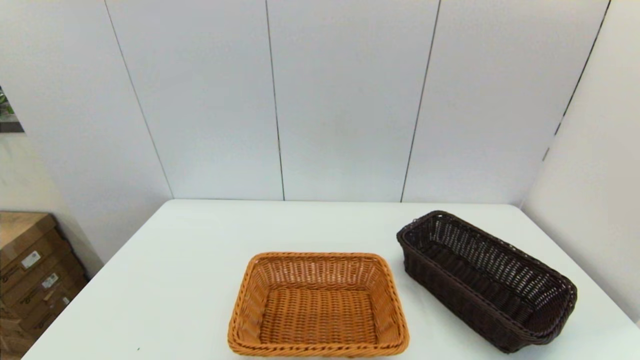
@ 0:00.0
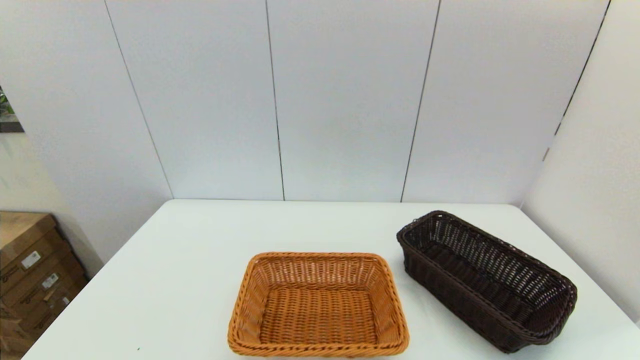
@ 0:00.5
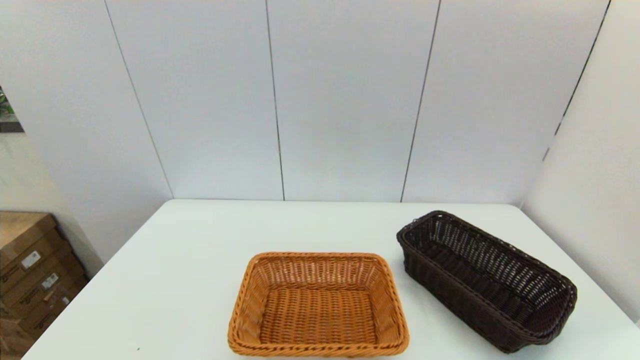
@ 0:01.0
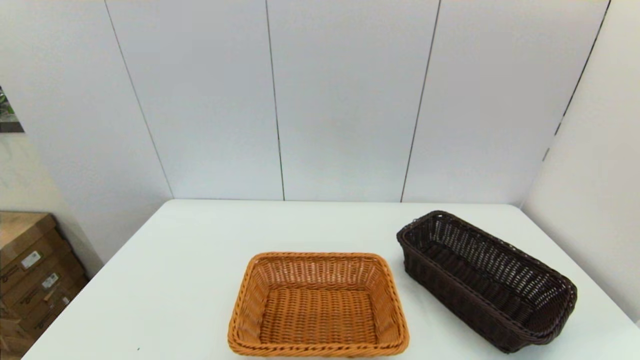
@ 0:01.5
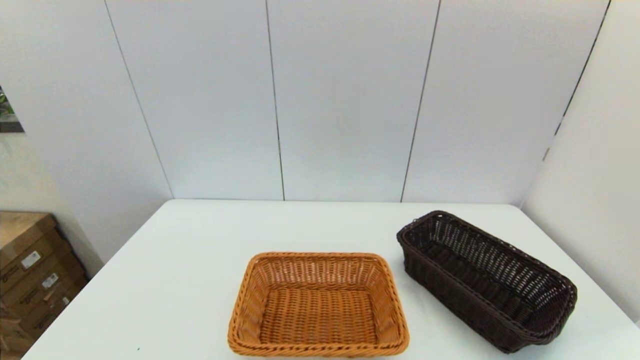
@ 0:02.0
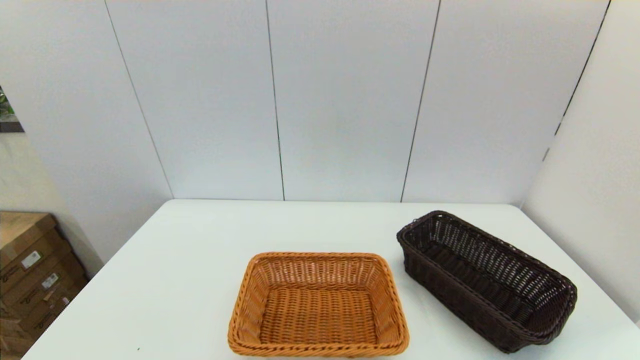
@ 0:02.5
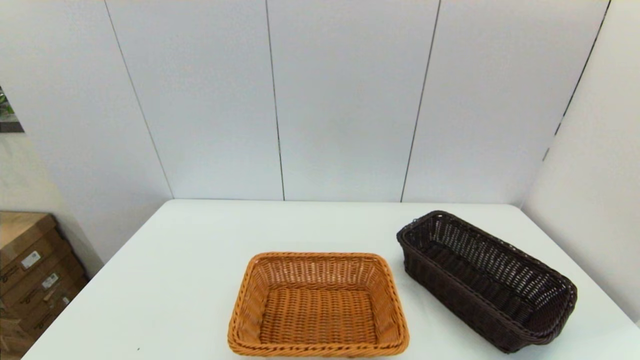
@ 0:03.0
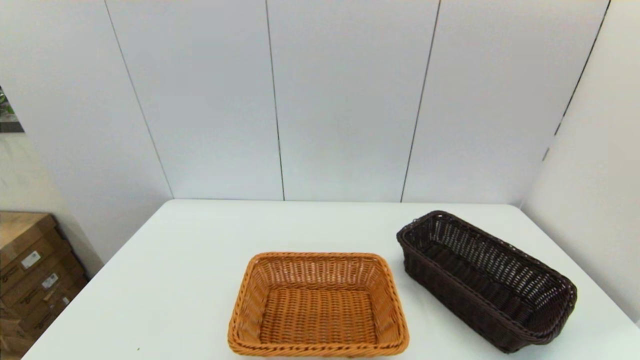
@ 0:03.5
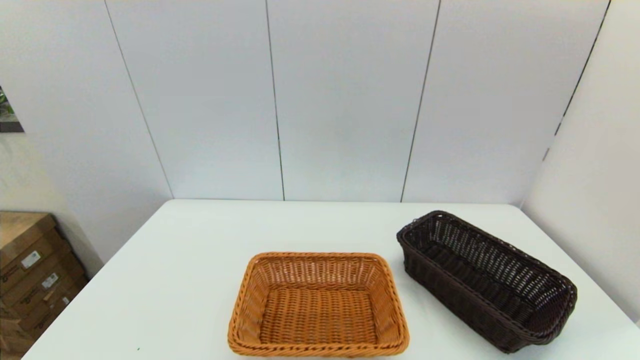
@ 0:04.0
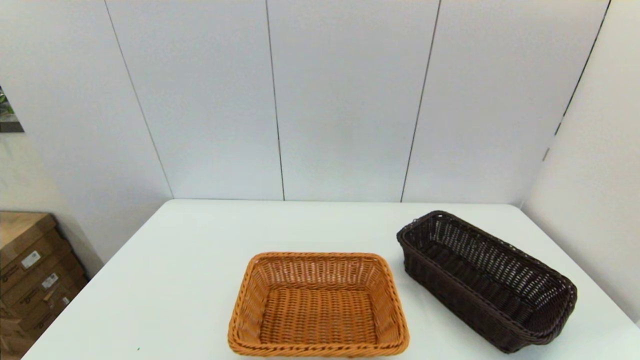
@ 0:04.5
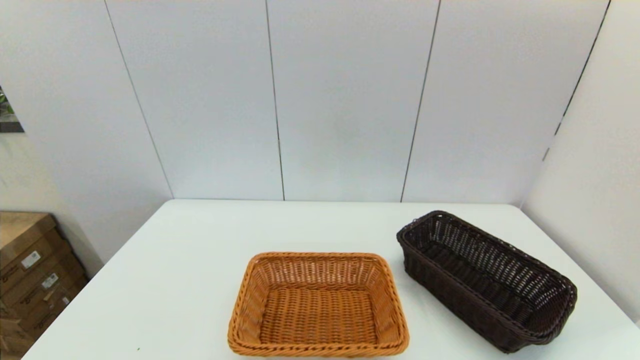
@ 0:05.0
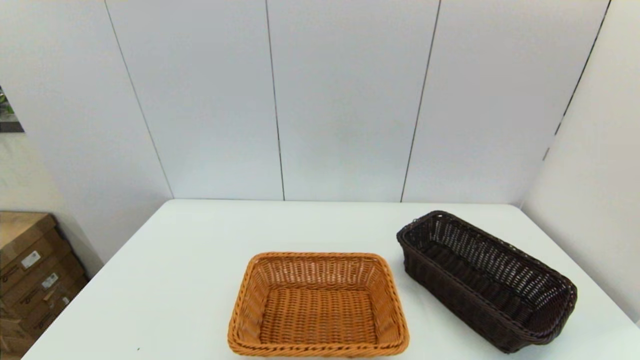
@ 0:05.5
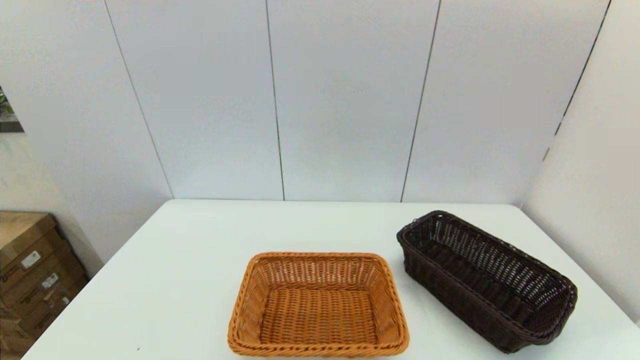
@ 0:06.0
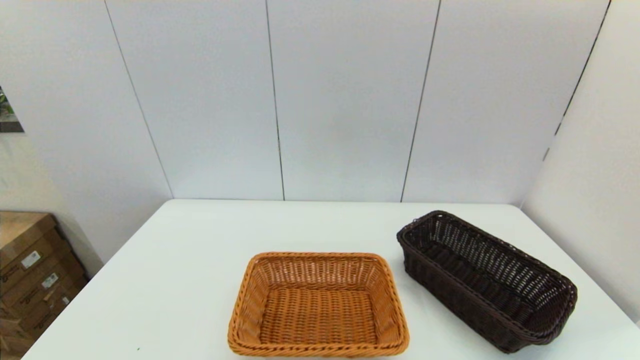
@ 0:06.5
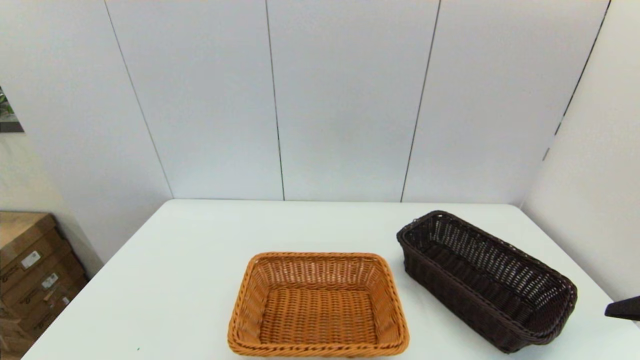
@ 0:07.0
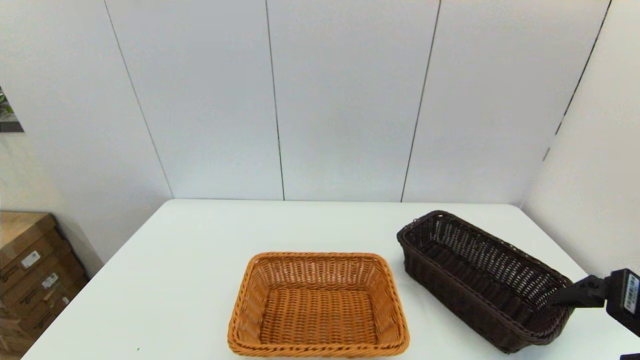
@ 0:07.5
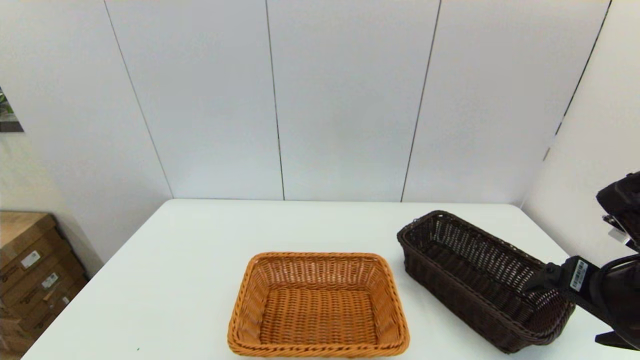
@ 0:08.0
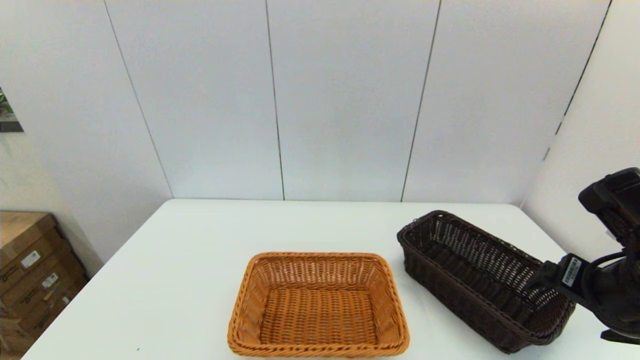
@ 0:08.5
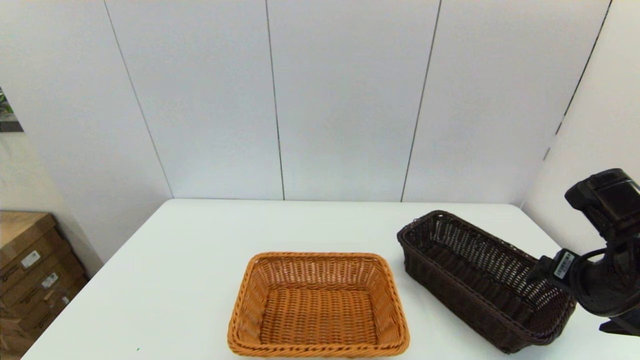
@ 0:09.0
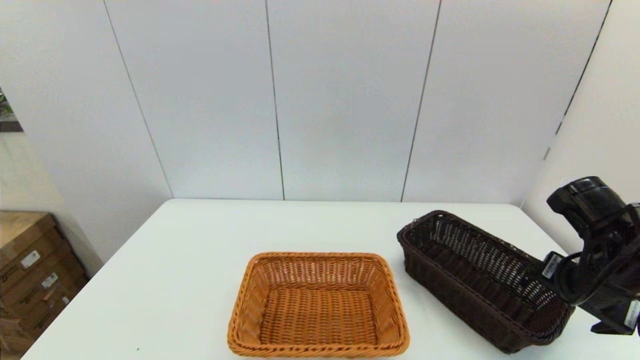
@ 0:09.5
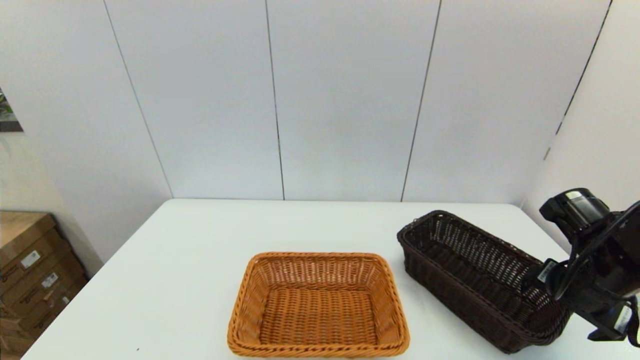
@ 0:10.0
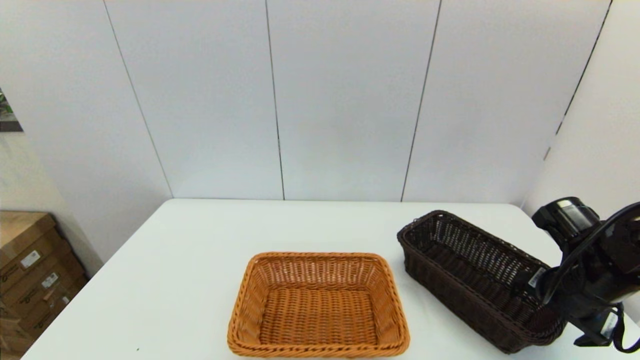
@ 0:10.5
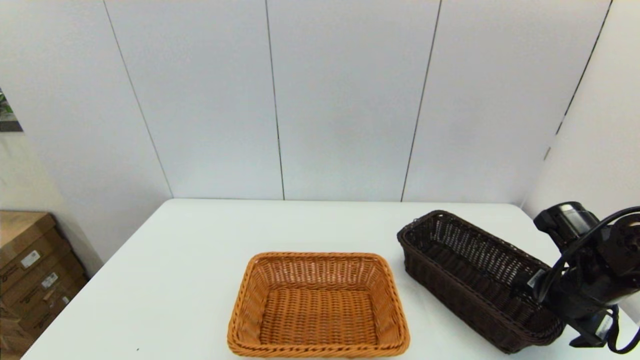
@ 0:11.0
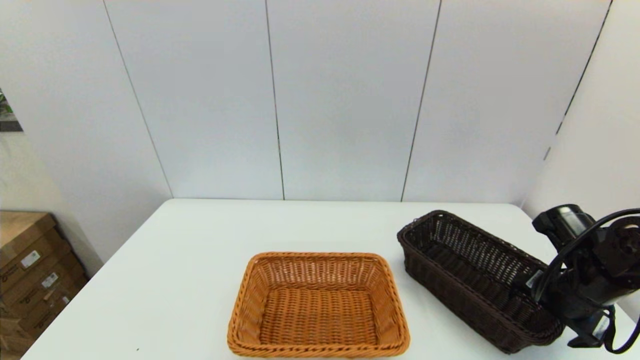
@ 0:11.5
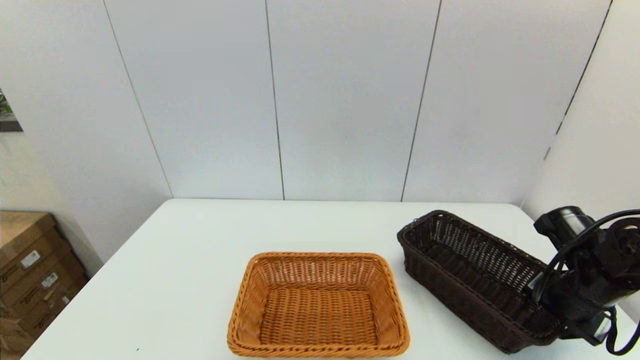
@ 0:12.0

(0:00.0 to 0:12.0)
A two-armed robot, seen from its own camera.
Task of the whole recording: stack a basket on top of another basket.
0:06.0 - 0:08.0: The right gripper travels forward by approximately 15 cm.
0:08.0 - 0:10.0: The right gripper moves downward and forward, roughly 10 cm.
0:10.0 - 0:12.0: The right gripper closes.

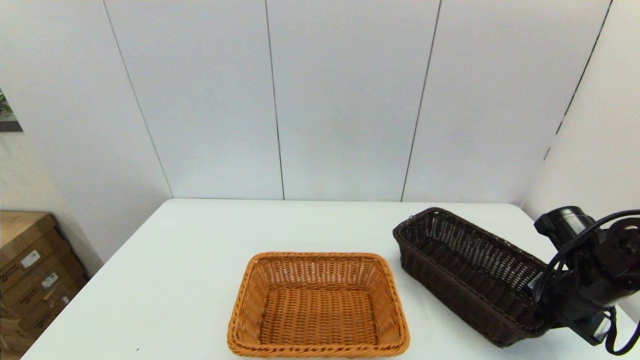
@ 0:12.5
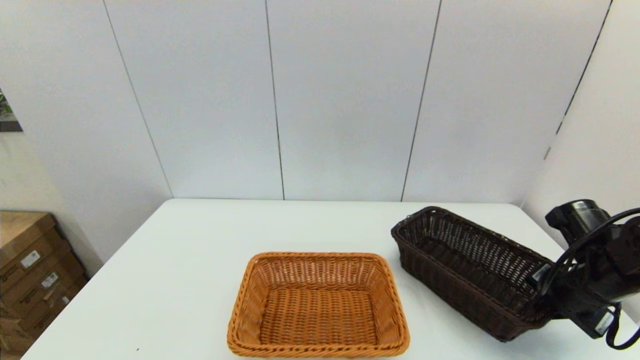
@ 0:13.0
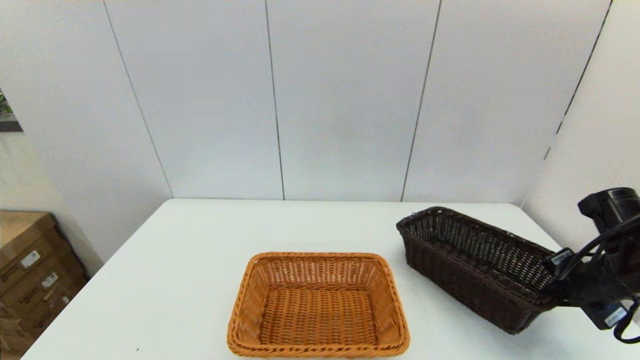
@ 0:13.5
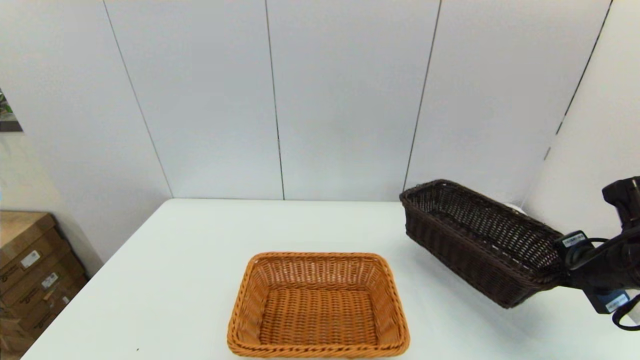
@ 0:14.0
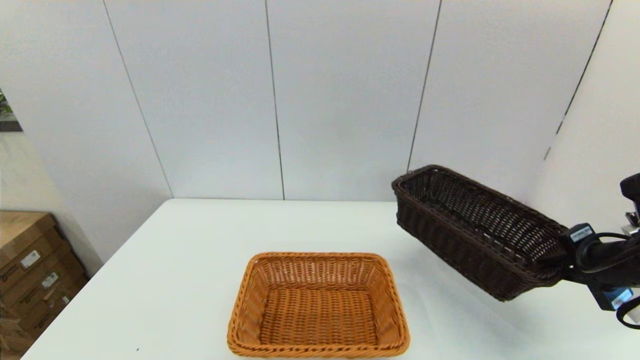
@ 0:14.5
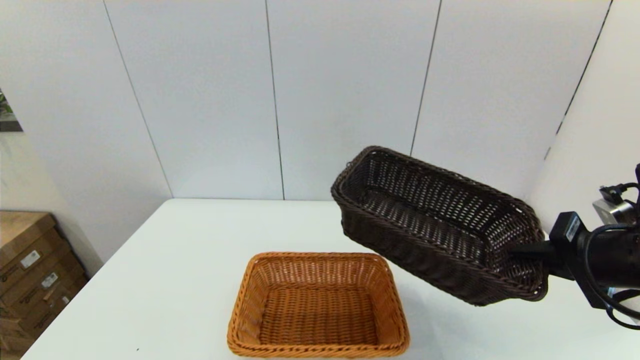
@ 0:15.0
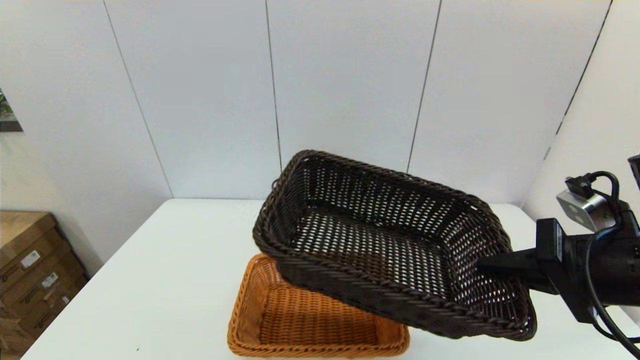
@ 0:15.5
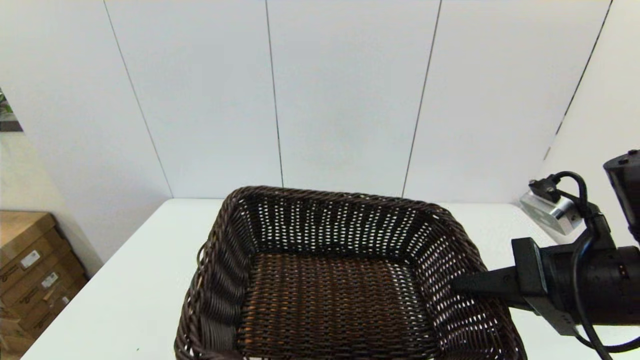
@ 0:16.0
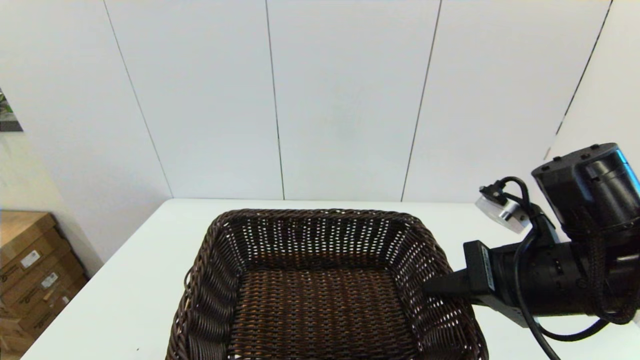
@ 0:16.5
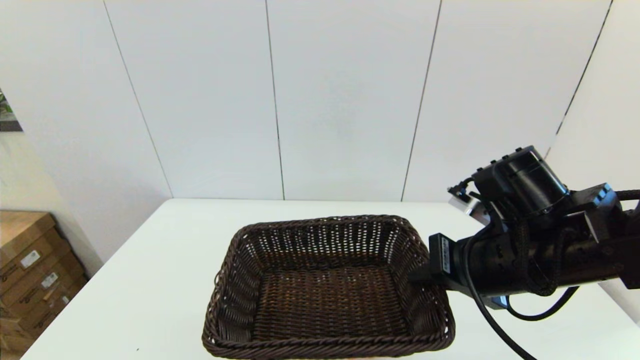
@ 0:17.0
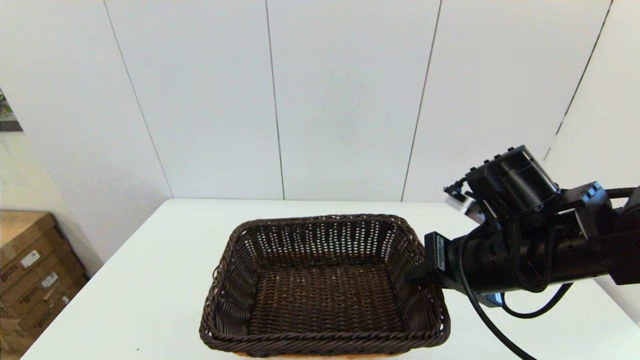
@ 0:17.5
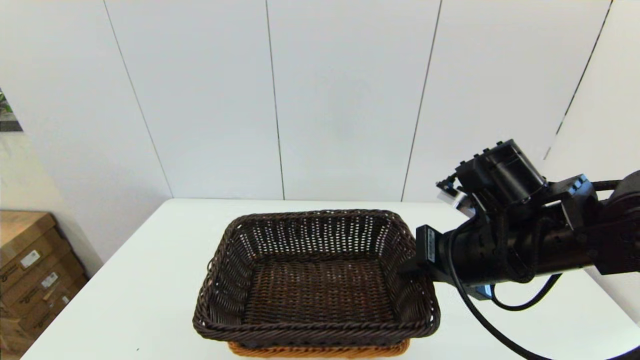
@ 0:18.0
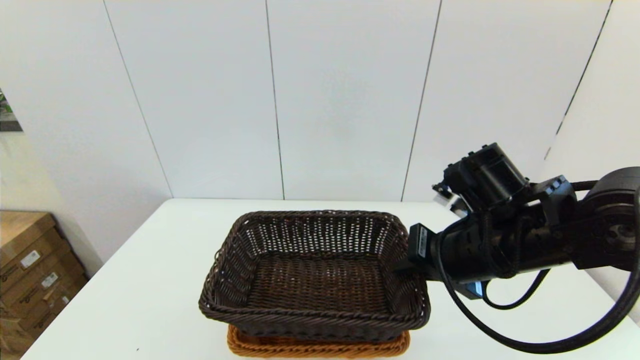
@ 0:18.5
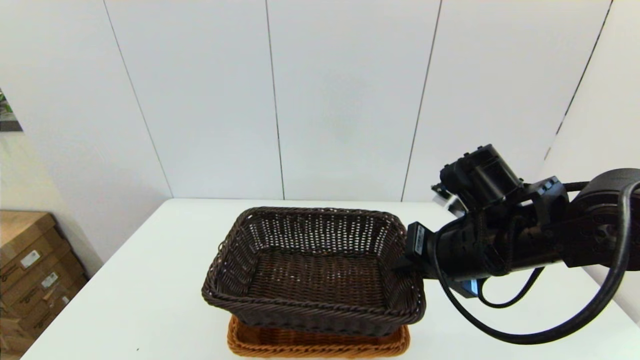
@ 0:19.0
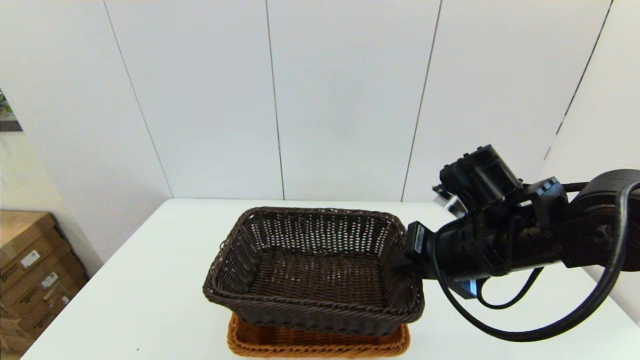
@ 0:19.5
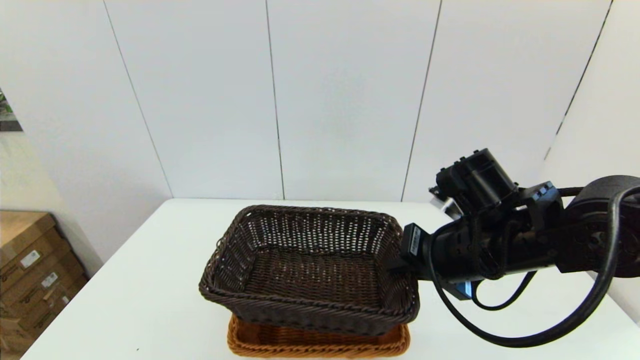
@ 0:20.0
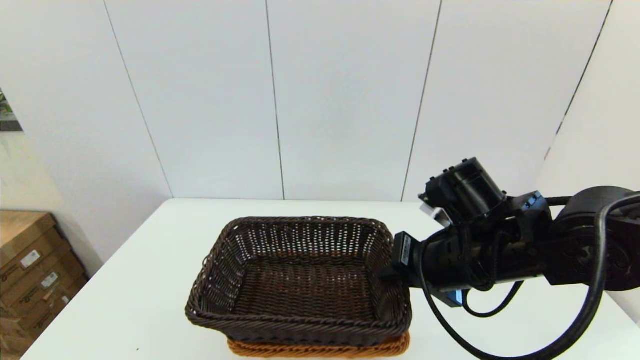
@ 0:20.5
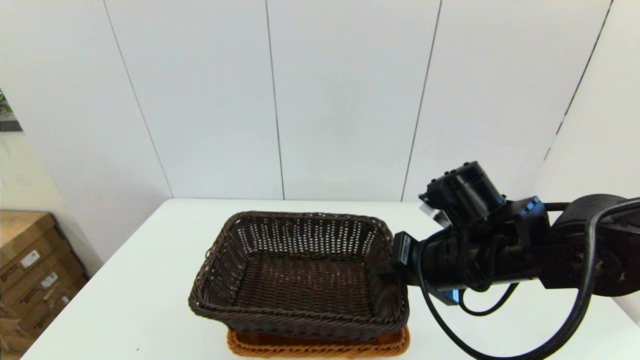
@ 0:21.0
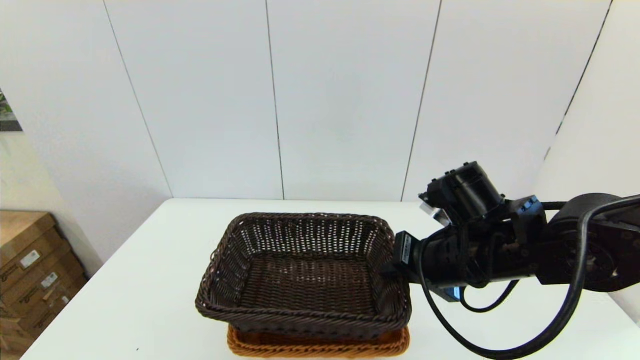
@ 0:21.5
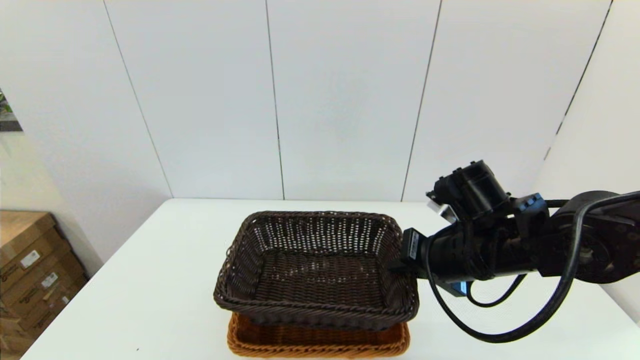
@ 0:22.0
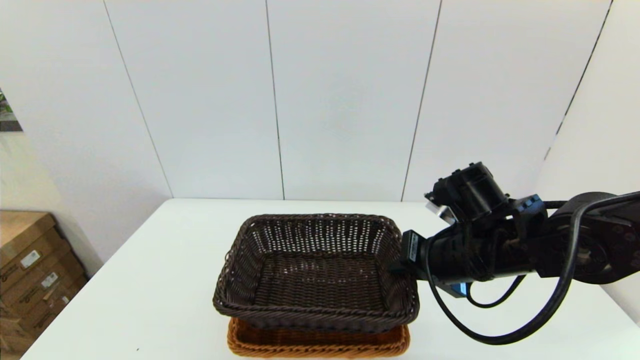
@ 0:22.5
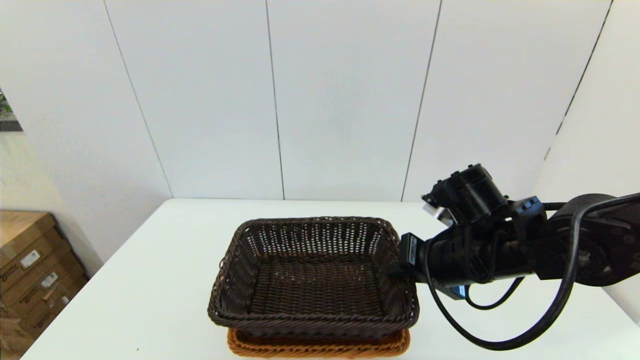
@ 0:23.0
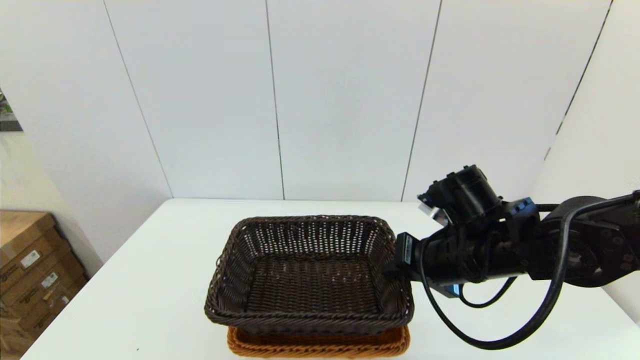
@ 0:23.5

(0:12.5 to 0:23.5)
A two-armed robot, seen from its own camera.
Task of the whole recording: stack a basket on top of another basket.
0:12.5 - 0:14.5: The right gripper moves upward, roughly 5 cm.
0:14.5 - 0:16.0: The right gripper heads to the left, backward and upward, covering roughly 15 cm.
0:16.0 - 0:18.0: The right gripper shifts about 10 cm forward and to the left.
0:18.0 - 0:23.5: There are only small adjustments of the grippers.
